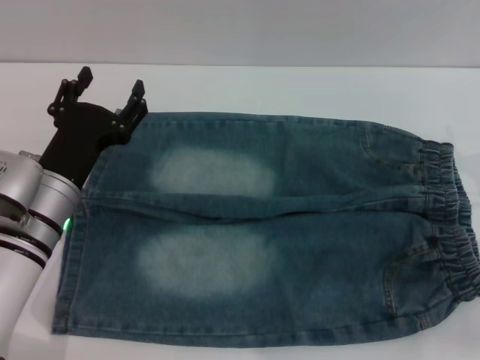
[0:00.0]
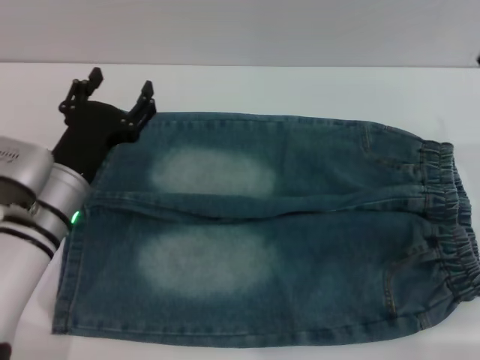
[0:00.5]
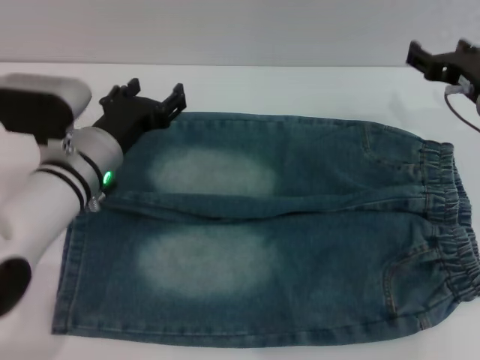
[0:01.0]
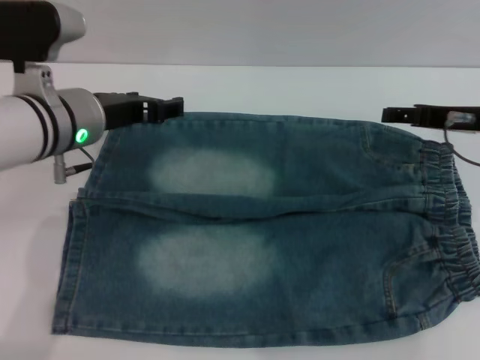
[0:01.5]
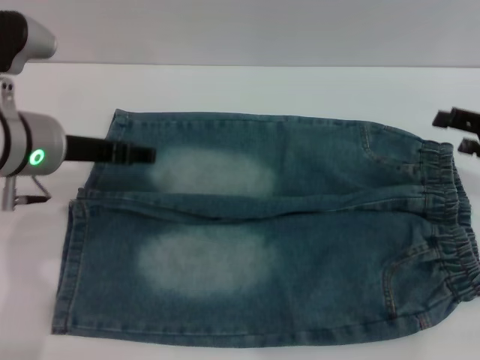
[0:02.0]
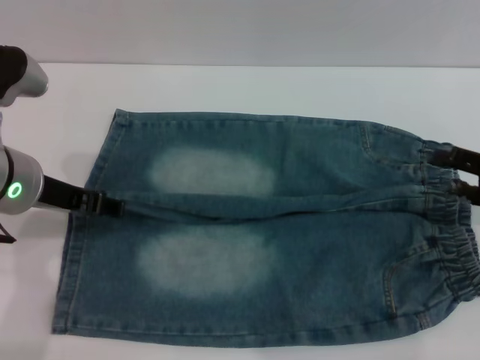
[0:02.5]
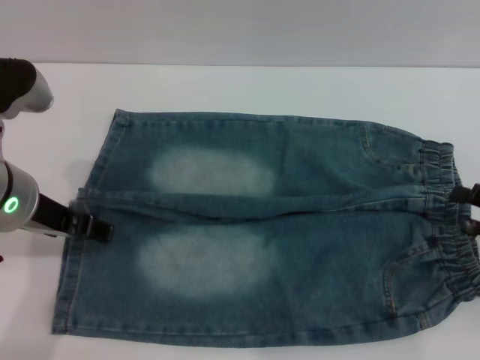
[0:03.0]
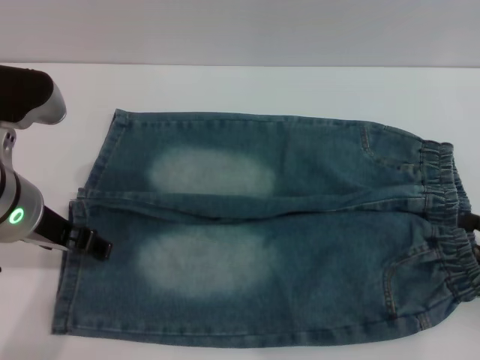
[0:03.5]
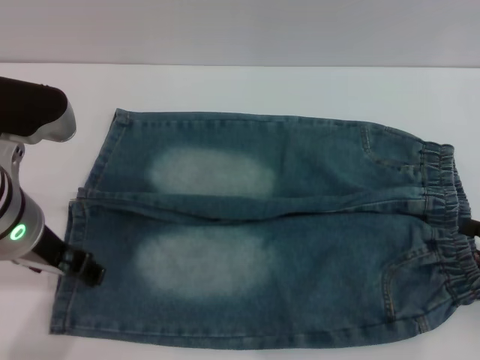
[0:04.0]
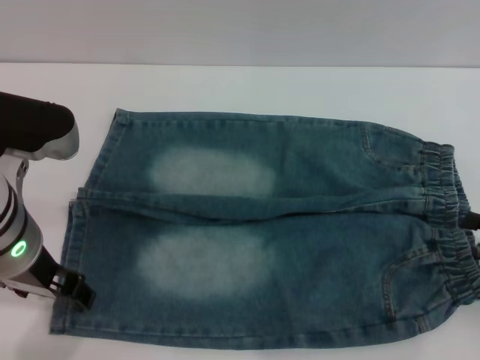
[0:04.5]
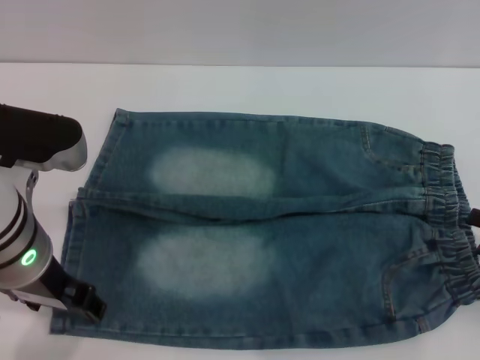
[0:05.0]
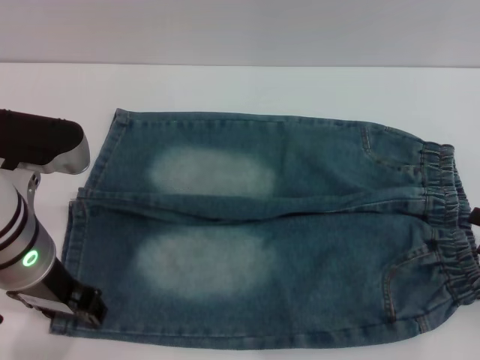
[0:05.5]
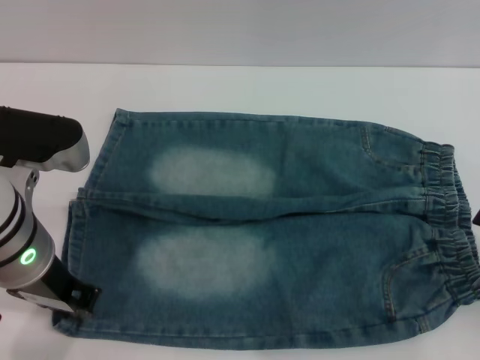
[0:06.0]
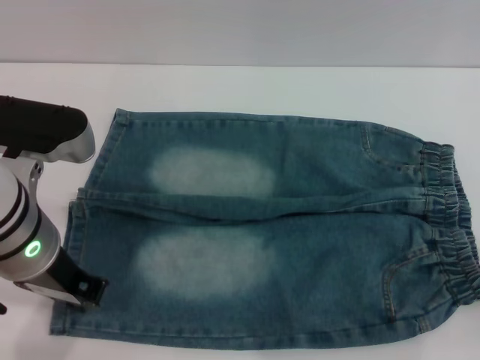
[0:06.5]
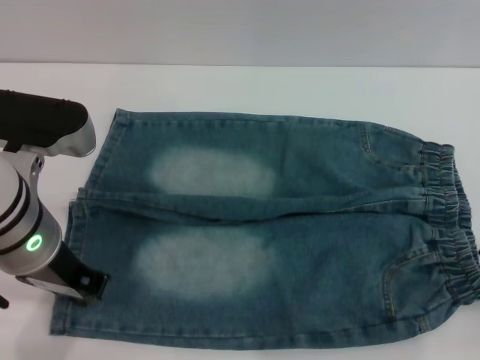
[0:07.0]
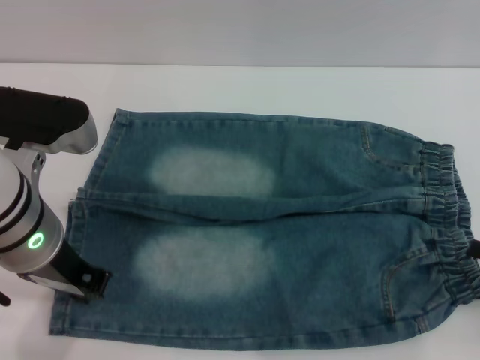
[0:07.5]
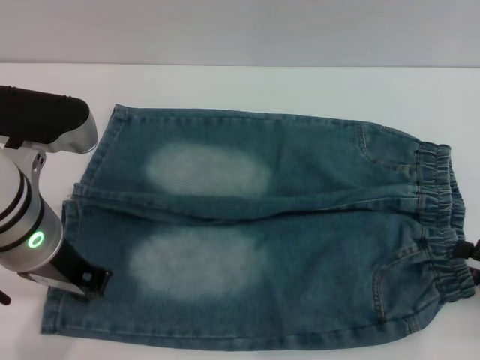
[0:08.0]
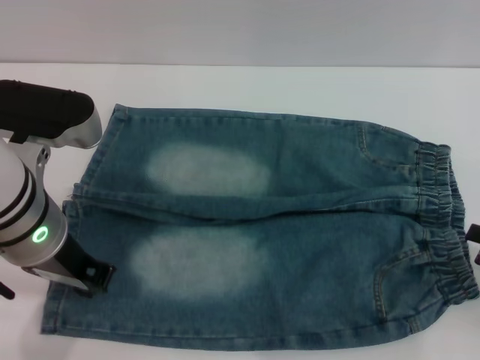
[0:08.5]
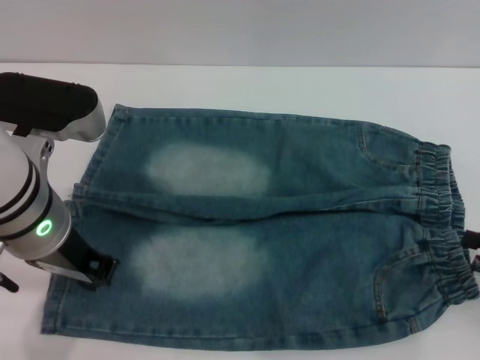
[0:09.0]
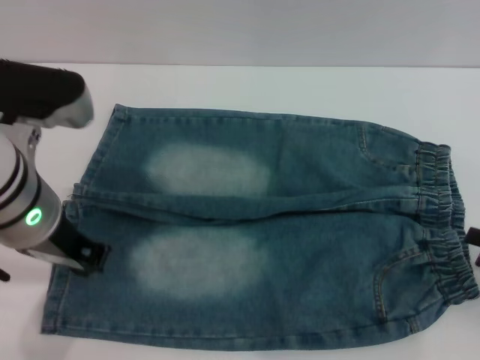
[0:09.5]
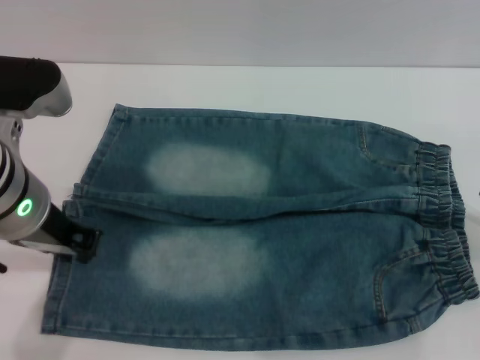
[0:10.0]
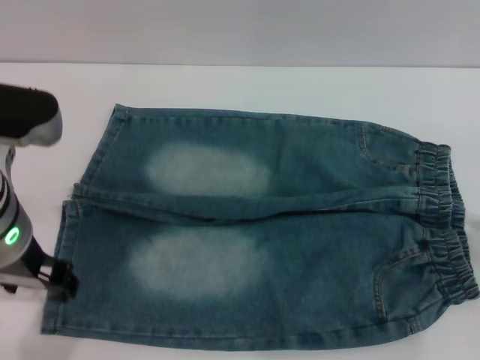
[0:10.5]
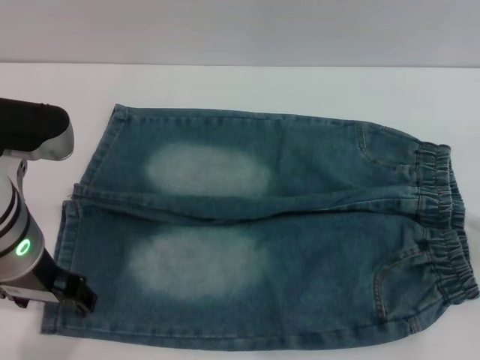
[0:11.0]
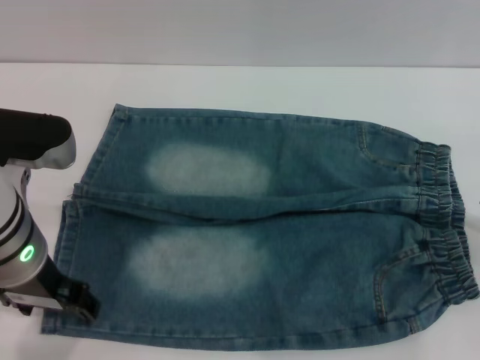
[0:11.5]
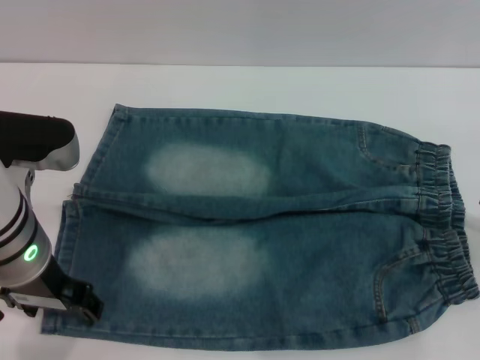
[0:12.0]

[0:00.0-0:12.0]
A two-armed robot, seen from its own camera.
0:00.0 to 0:02.0: The left gripper travels upward by approximately 10 cm; the right gripper heads upward, covering some 5 cm.
0:02.0 to 0:04.0: The right gripper travels backward and downward by about 15 cm. Meanwhile the left gripper is displaced backward by roughly 5 cm.
0:04.0 to 0:06.0: The left gripper closes its fingers.
0:06.0 to 0:08.0: The left gripper closes.
0:08.0 to 0:10.0: The right gripper changes place by some 5 cm.
0:10.0 to 0:12.0: The left gripper opens.

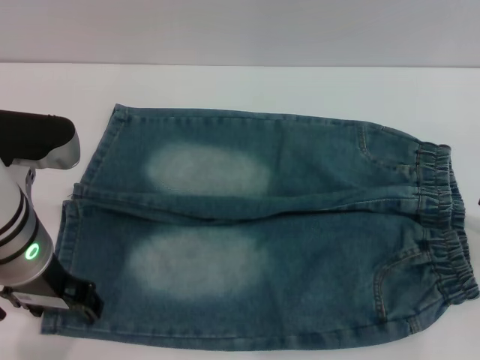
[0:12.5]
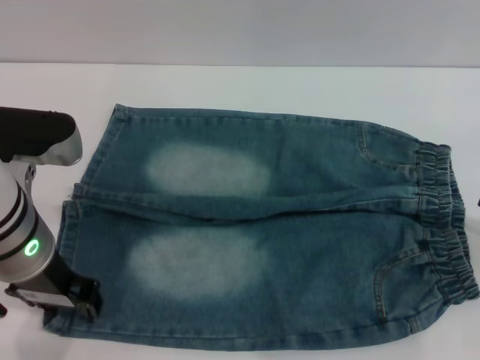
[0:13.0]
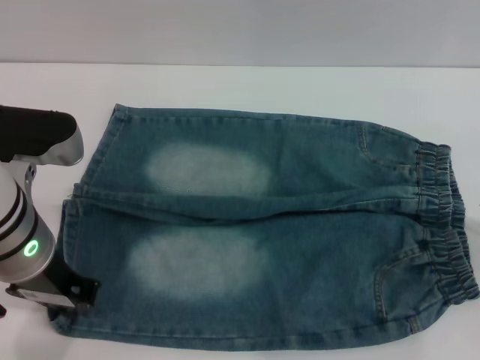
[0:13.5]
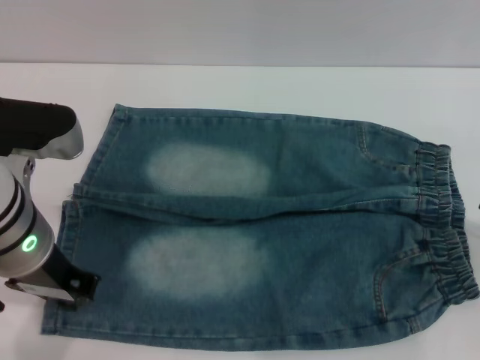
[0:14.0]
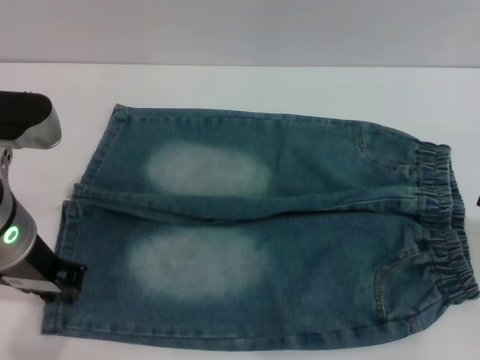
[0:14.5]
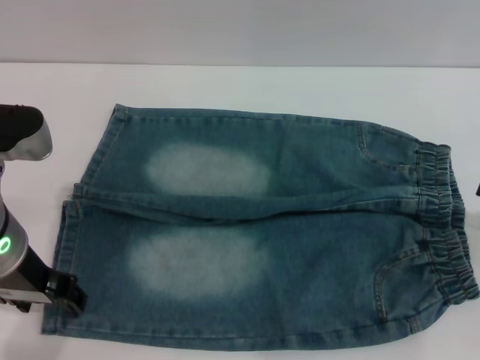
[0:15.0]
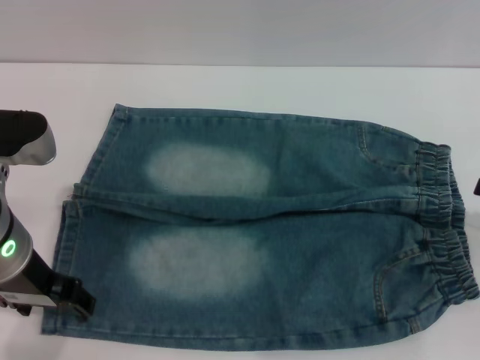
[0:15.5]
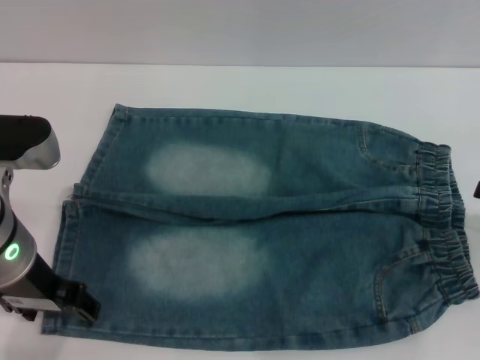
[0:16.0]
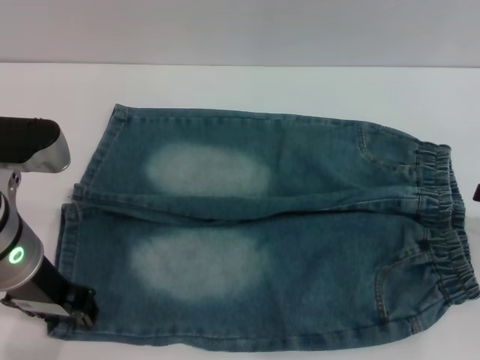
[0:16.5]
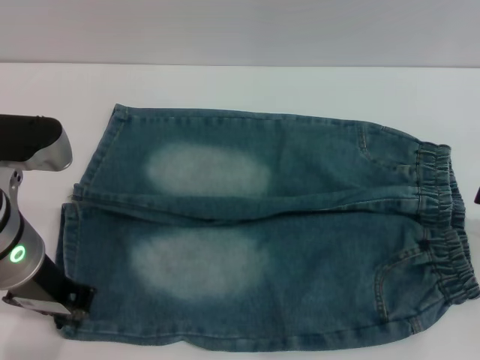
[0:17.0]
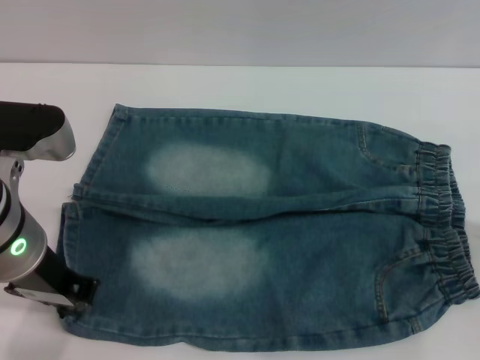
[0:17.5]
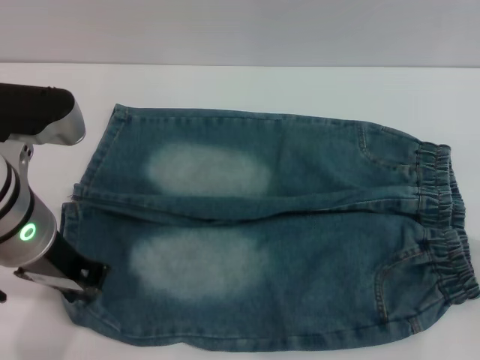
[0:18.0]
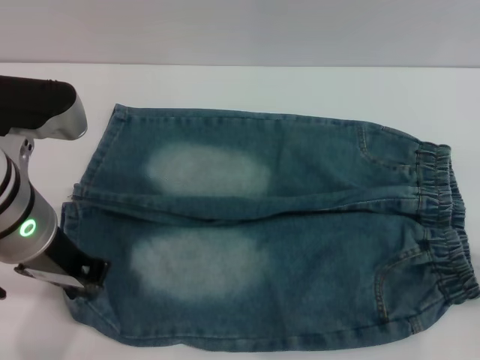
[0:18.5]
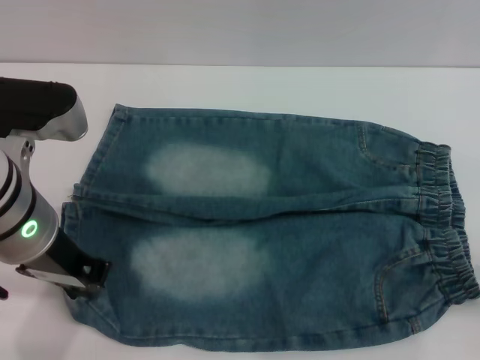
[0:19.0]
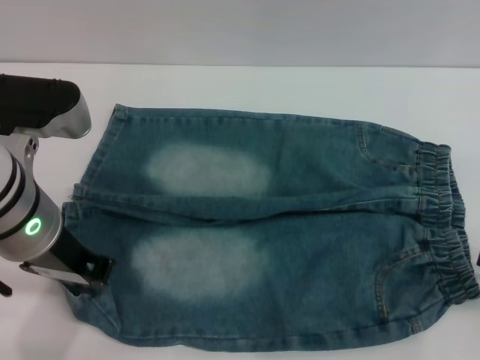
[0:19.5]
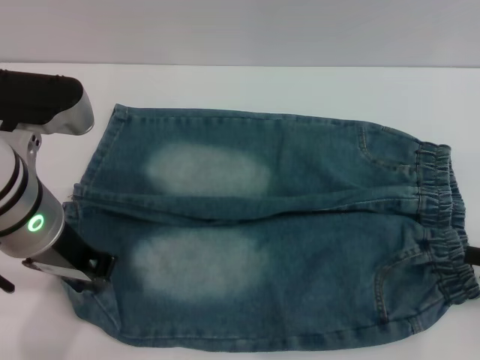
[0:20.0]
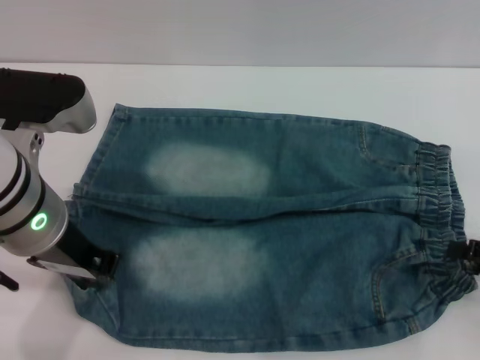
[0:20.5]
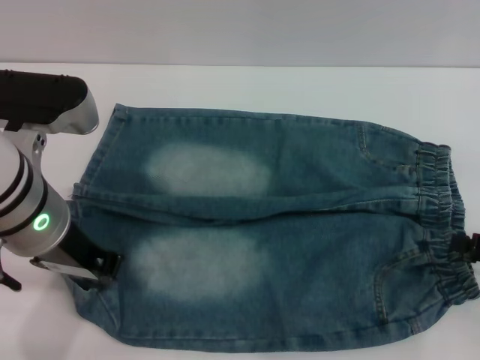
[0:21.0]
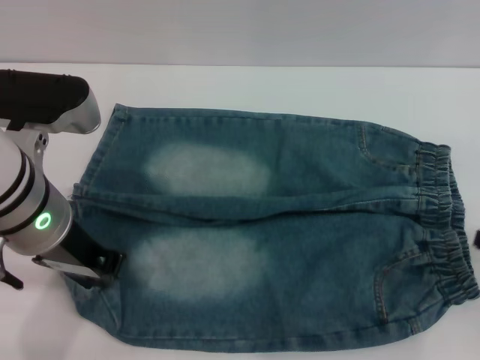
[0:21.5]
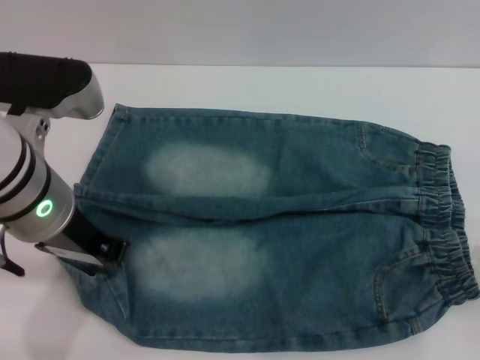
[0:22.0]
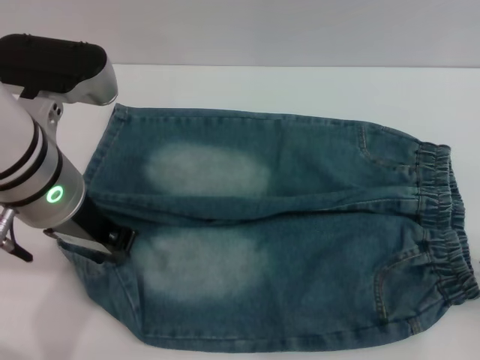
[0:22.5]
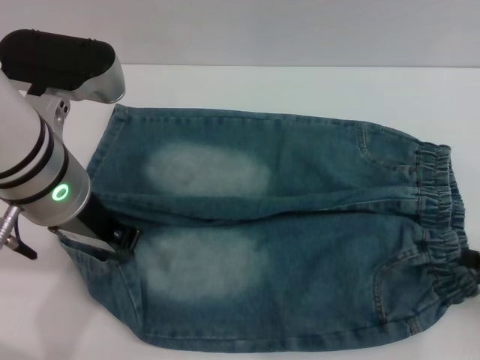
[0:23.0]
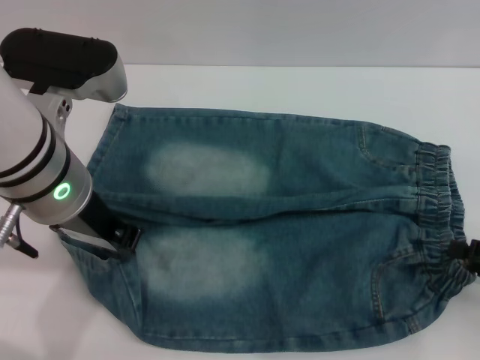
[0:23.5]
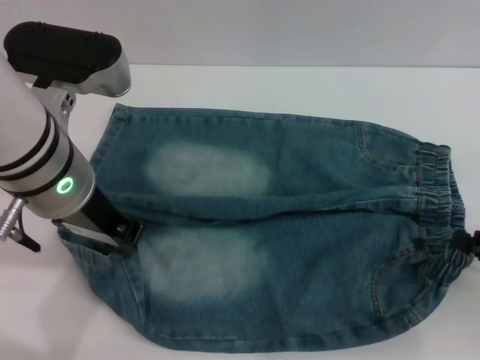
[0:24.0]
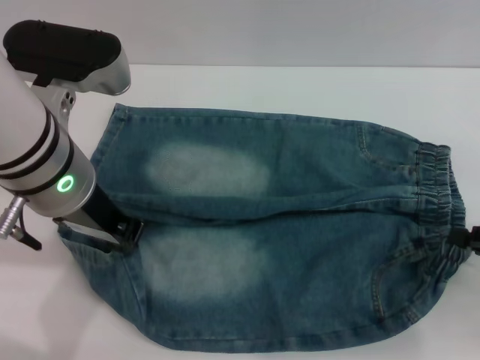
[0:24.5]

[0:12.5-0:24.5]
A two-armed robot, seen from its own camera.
0:12.5 to 0:14.5: The left gripper closes its fingers.
0:14.5 to 0:16.5: The left gripper opens its fingers.
0:16.5 to 0:18.5: The left gripper closes its fingers.
0:18.5 to 0:20.5: There are only small adjustments of the grippers.
0:20.5 to 0:22.5: The right gripper closes, then reopens.
0:22.5 to 0:24.5: The right gripper closes up.

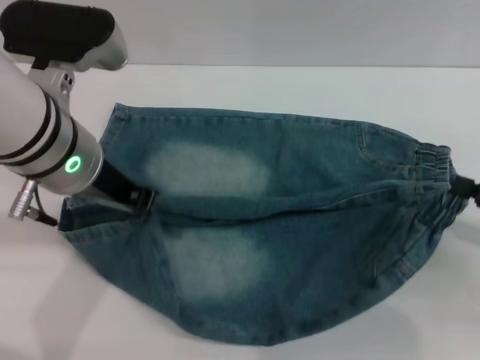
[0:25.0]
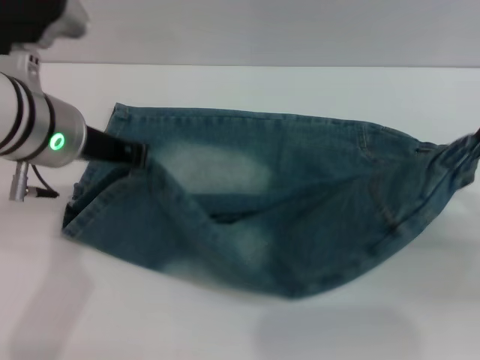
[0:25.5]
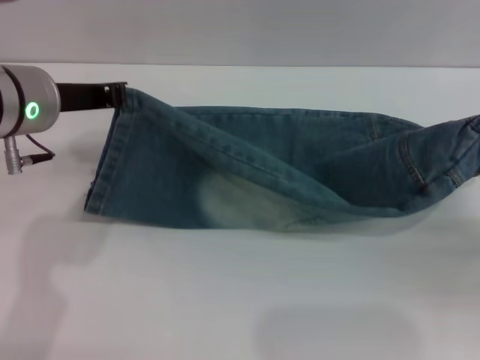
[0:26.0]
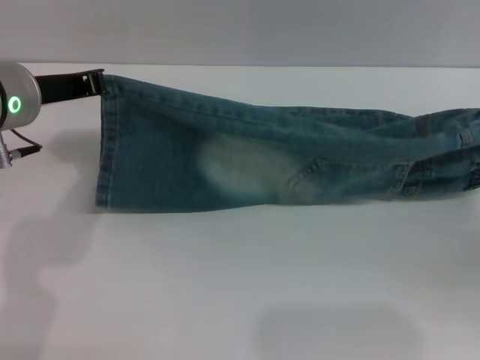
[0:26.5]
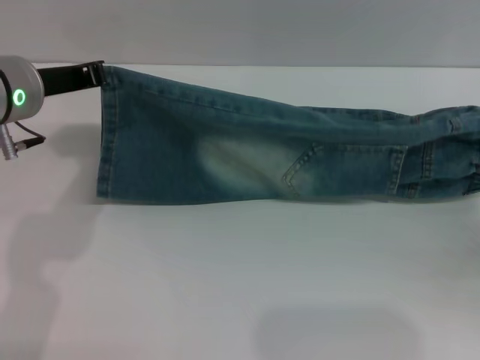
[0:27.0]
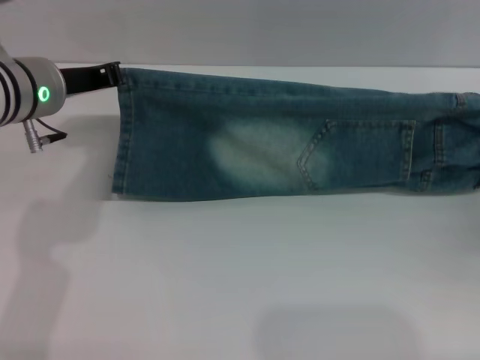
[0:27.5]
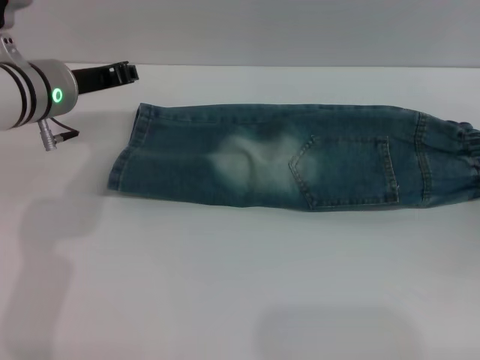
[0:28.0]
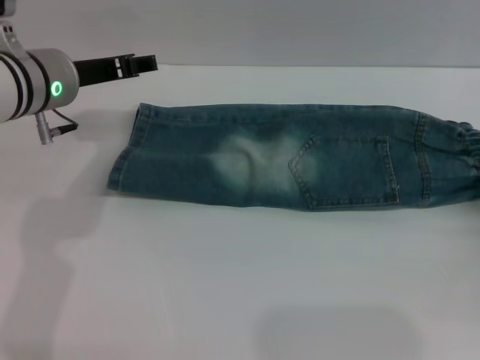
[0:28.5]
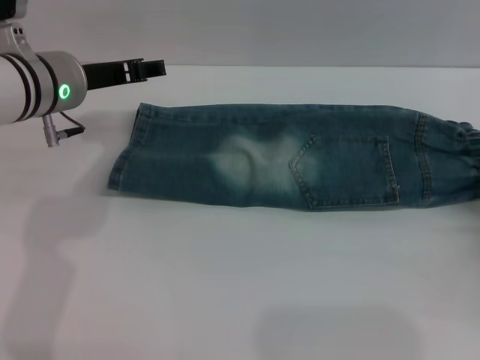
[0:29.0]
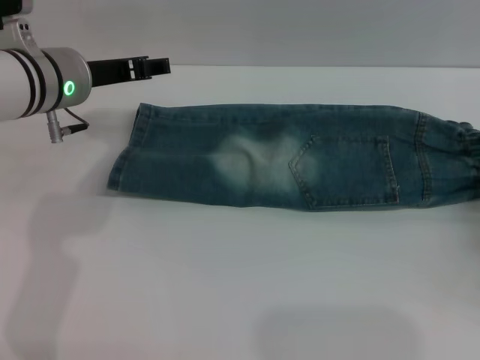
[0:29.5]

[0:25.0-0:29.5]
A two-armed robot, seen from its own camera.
Step, 0:25.0 to 0:27.5: Fold the bottom of the pants upward with both grippers.
0:25.0 to 0:27.0: The left gripper travels to the left by approximately 5 cm. The right gripper moves about 5 cm.
0:27.0 to 0:29.5: The left gripper opens its fingers, while the right gripper opens.
